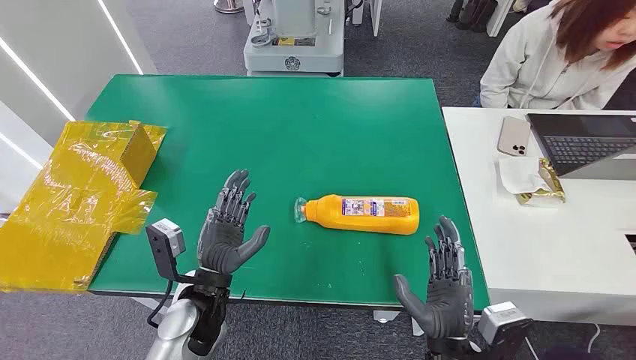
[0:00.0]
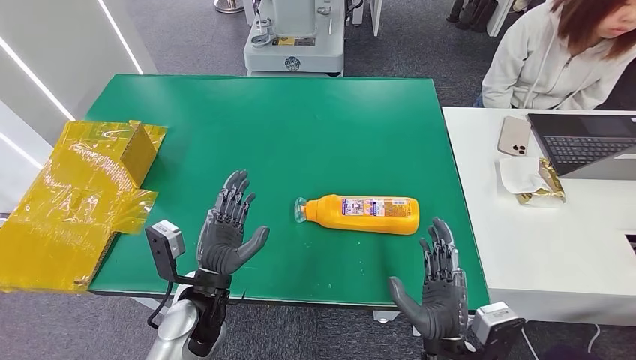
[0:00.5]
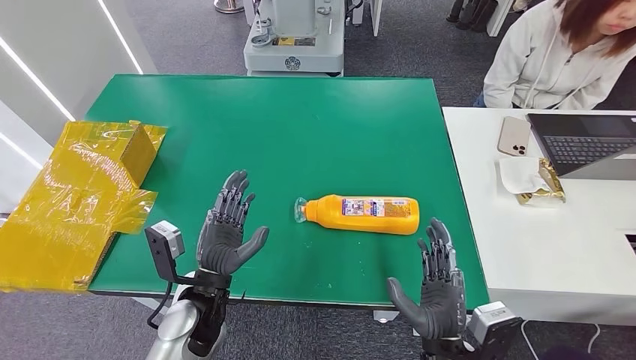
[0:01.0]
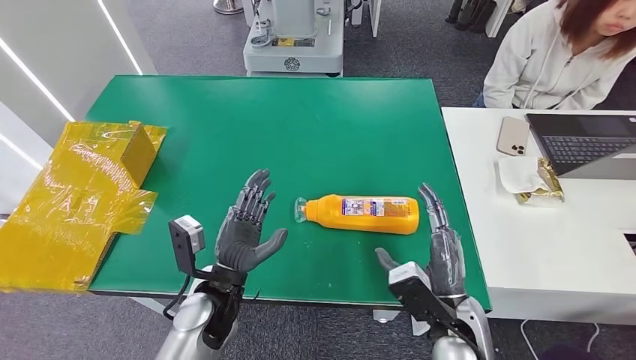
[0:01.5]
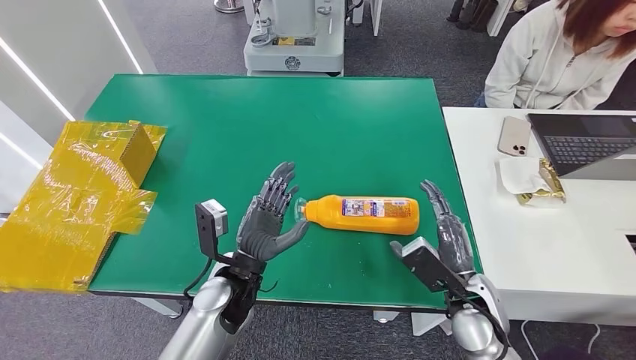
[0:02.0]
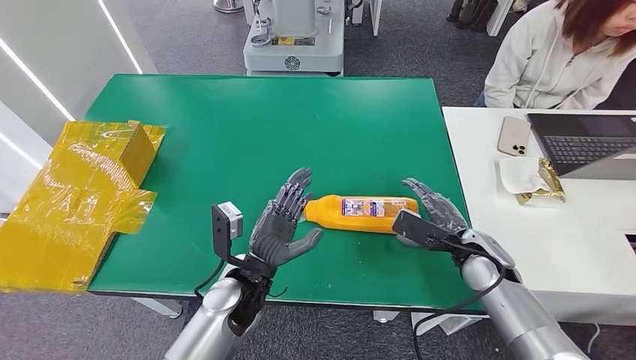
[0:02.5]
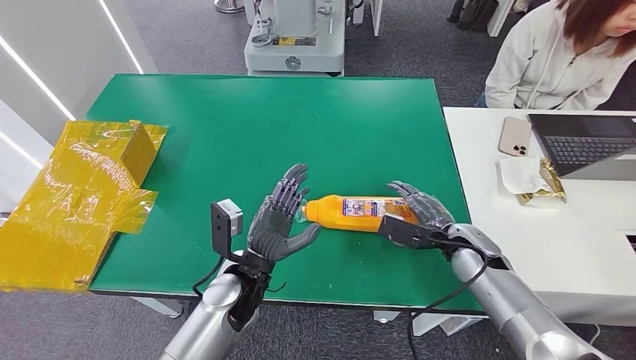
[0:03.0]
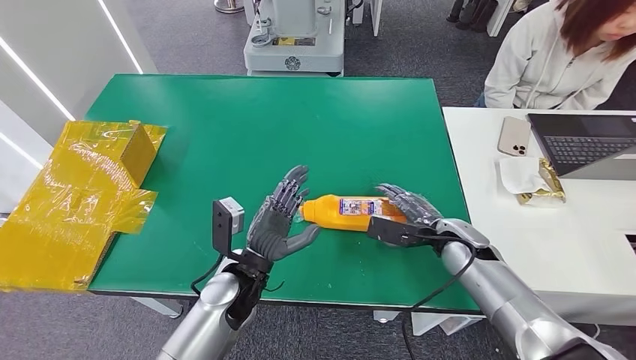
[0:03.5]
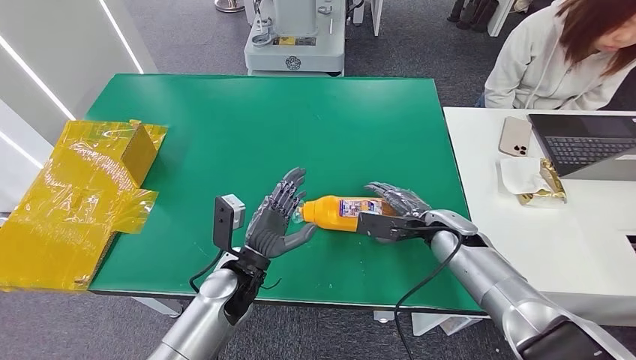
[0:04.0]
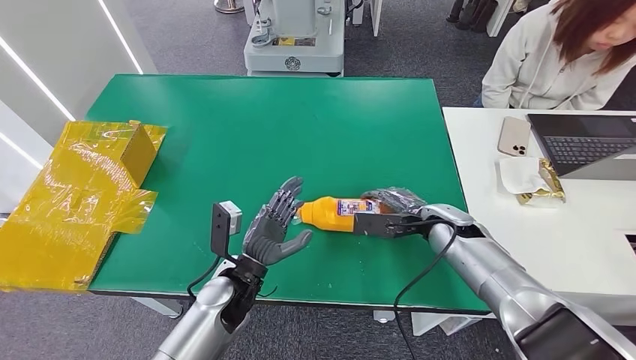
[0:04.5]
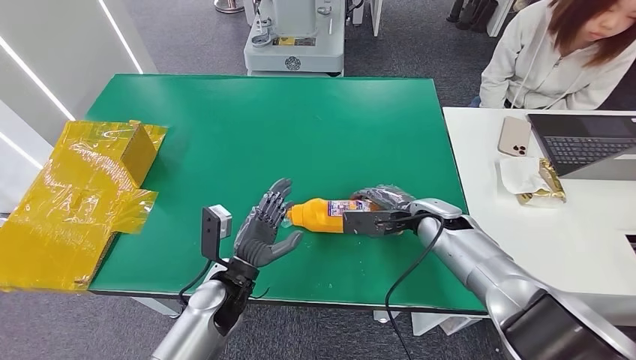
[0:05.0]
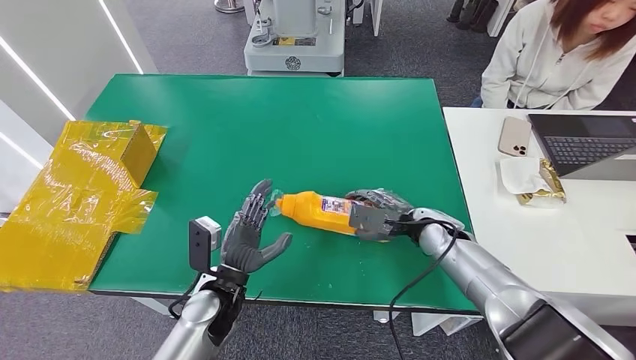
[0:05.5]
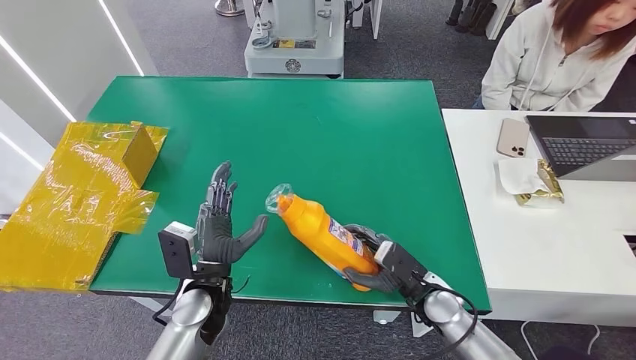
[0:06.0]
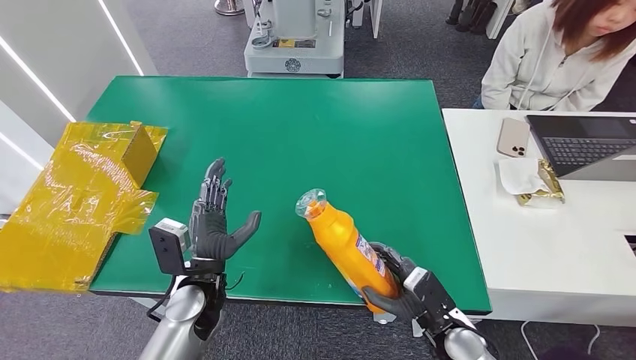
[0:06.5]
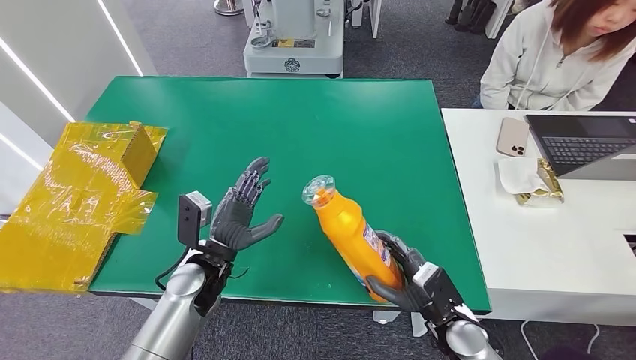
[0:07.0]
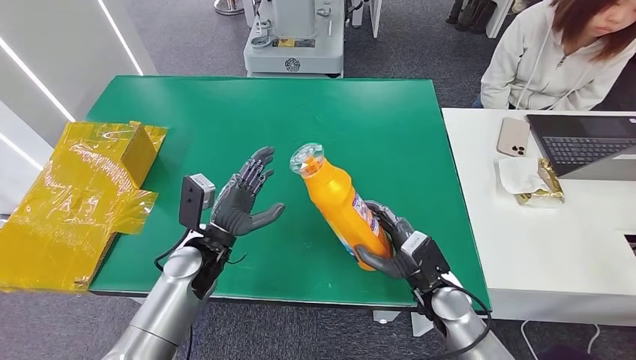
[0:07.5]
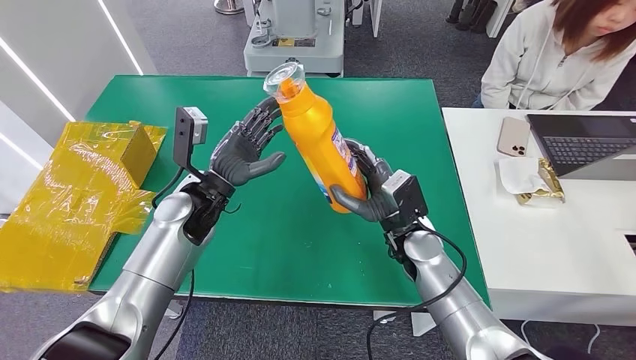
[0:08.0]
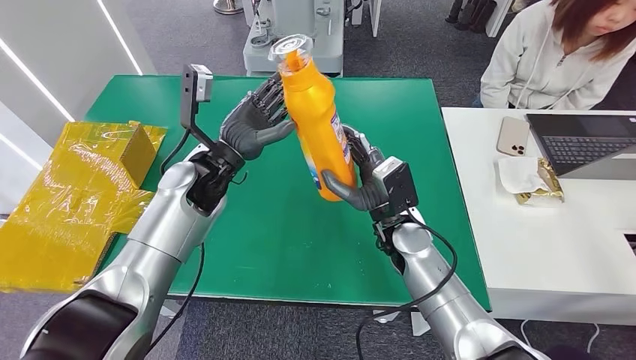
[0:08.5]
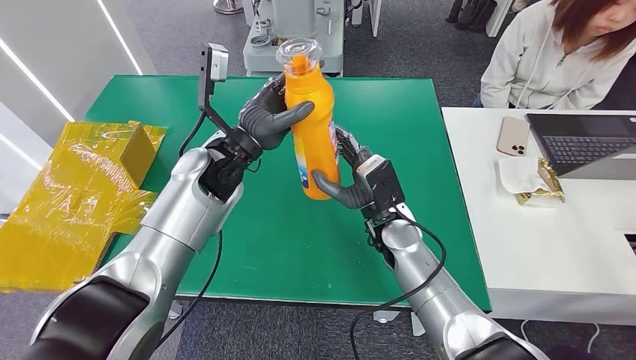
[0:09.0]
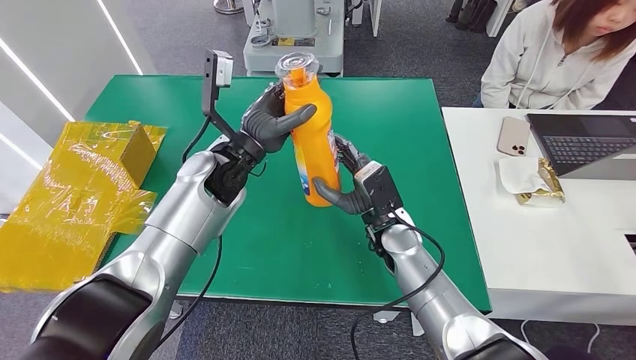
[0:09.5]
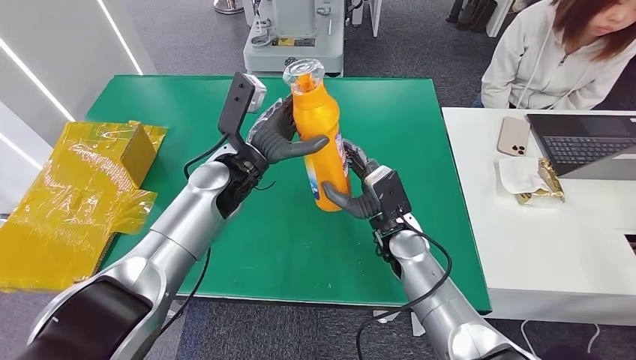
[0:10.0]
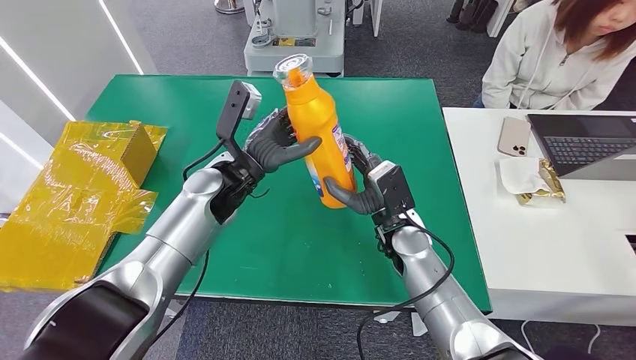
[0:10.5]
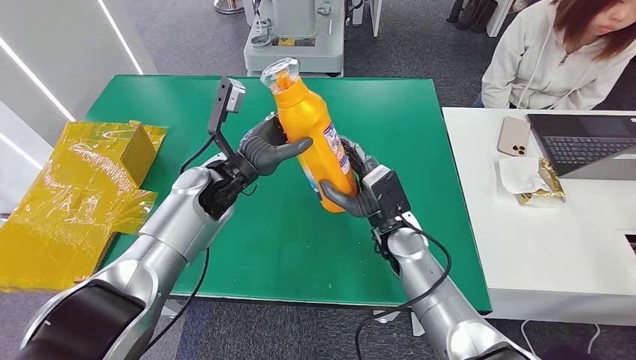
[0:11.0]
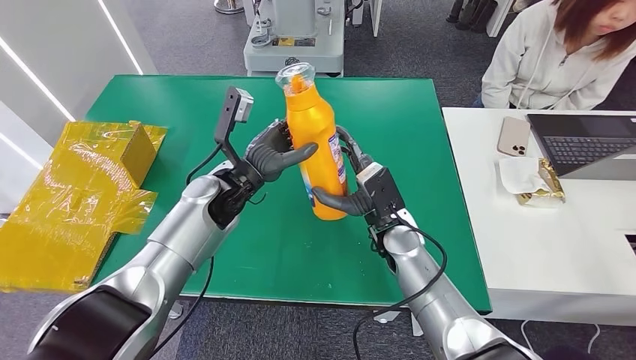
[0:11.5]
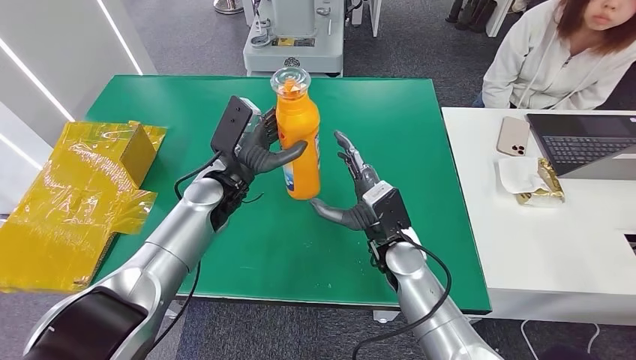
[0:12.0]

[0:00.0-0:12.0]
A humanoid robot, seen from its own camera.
Step, 0:00.0 to 0:06.5: Pick up the bottle from the table.
0:02.0 to 0:04.0: The right hand moves forward, roughly 15 cm.
0:08.0 to 0:10.0: The left hand shifts by roughly 5 cm.

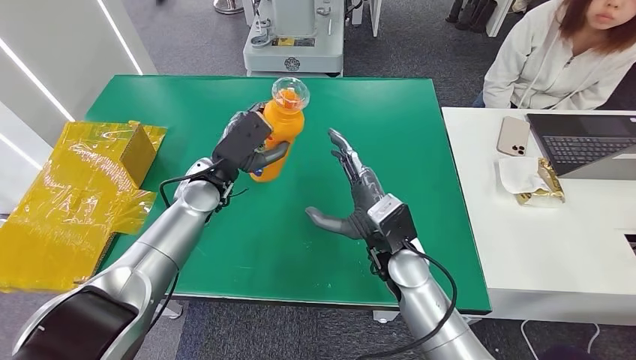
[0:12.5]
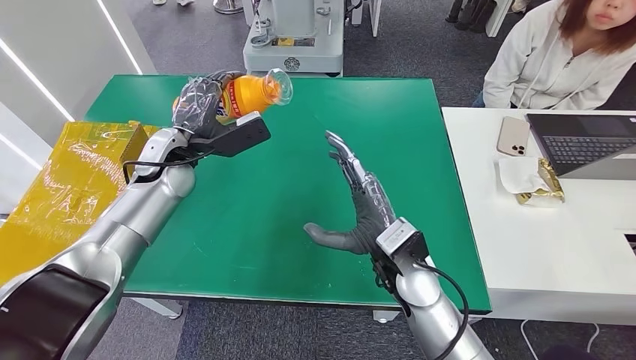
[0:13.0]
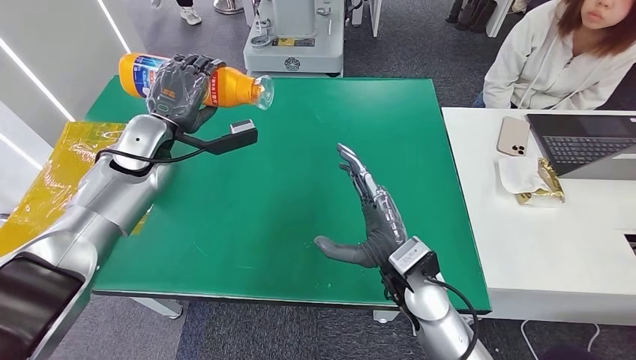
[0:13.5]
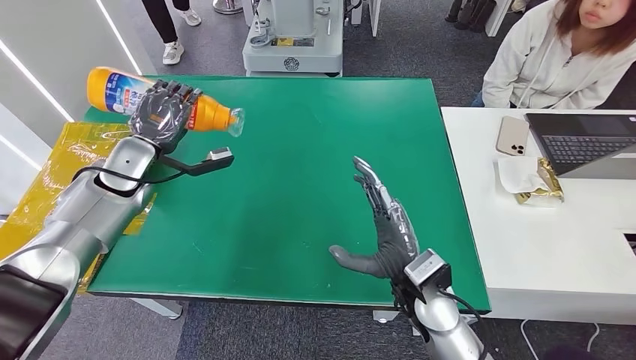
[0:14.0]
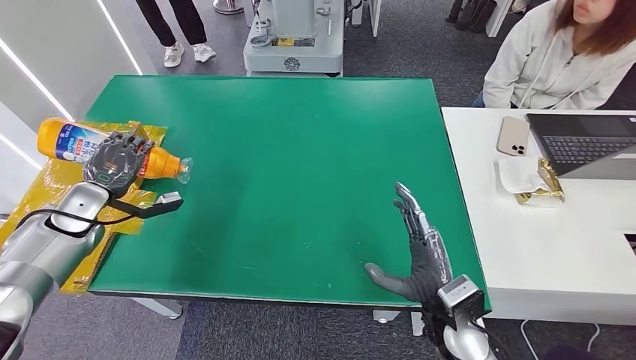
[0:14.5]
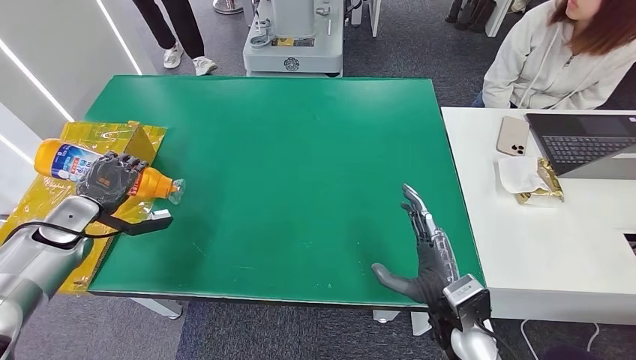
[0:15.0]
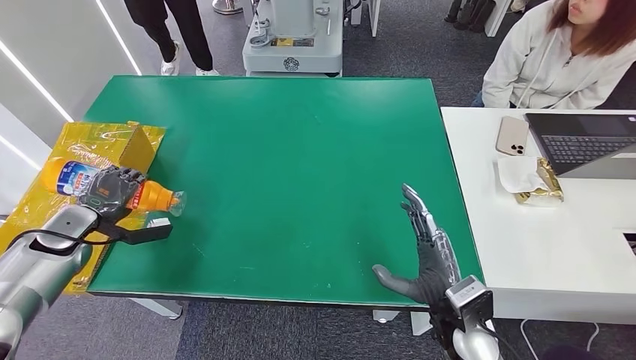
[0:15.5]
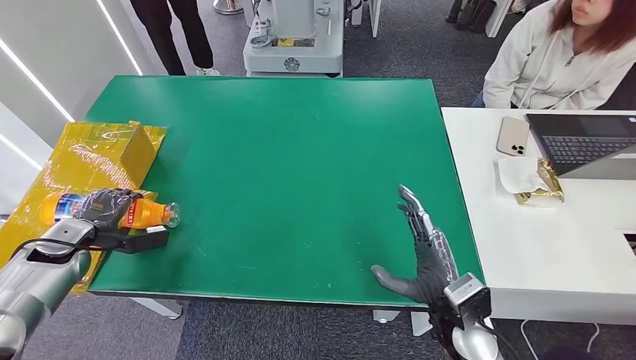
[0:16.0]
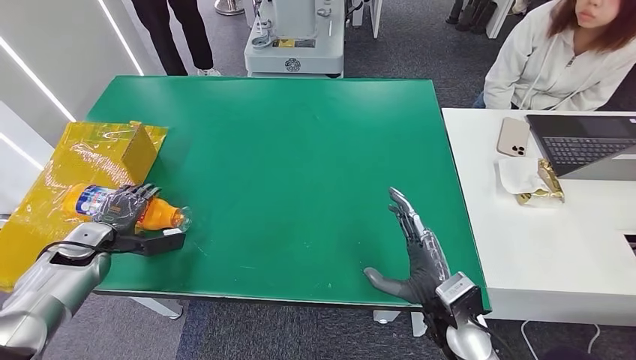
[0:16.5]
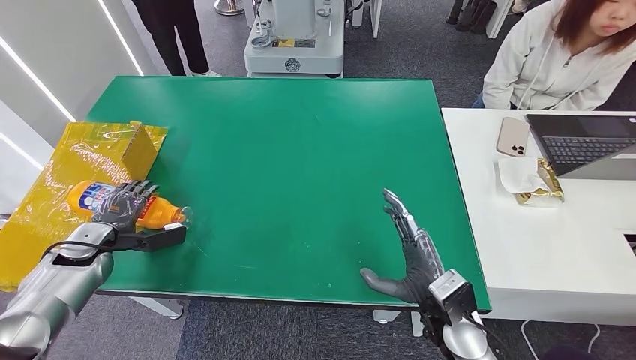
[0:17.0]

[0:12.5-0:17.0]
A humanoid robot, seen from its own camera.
Step, 0:12.5 to 0:17.0: Turn the bottle to the front side.
0:14.5 to 0:17.0: The left hand heads downward and backward, covering about 10 cm.
